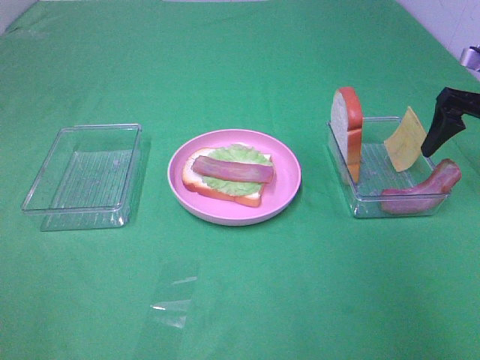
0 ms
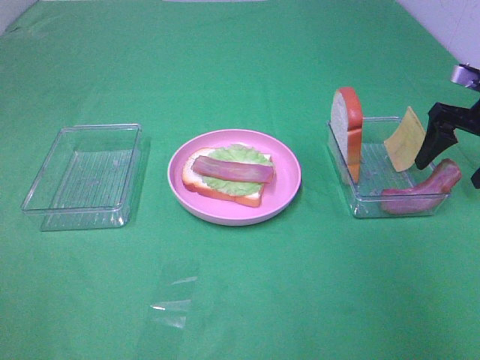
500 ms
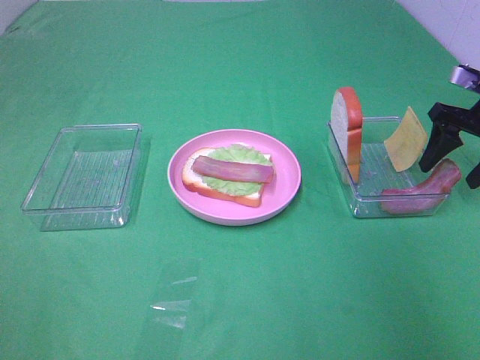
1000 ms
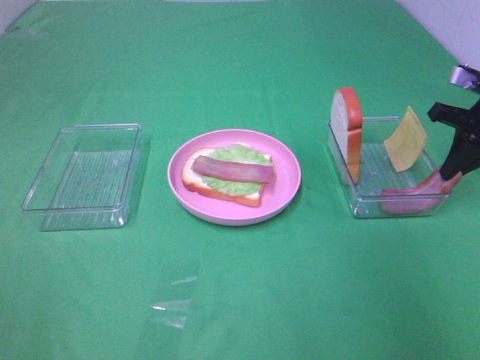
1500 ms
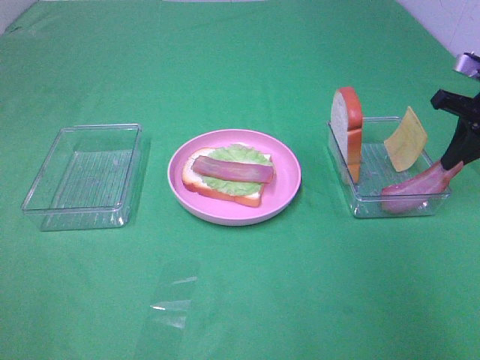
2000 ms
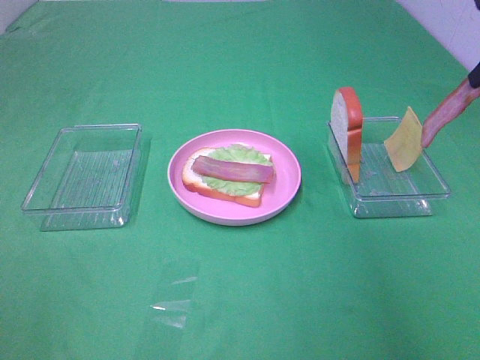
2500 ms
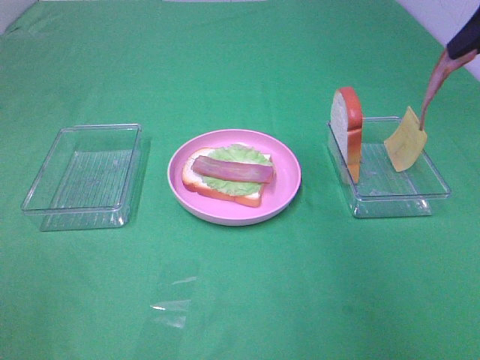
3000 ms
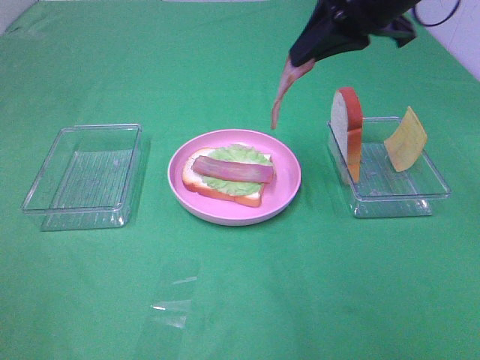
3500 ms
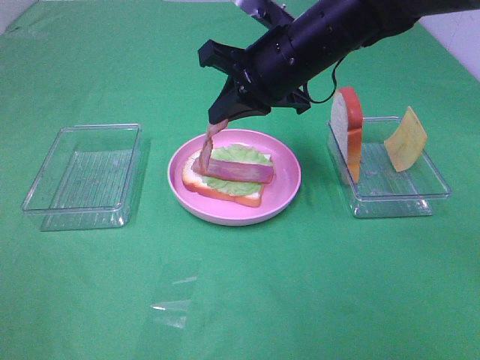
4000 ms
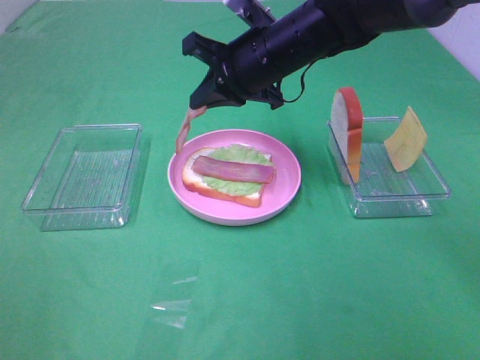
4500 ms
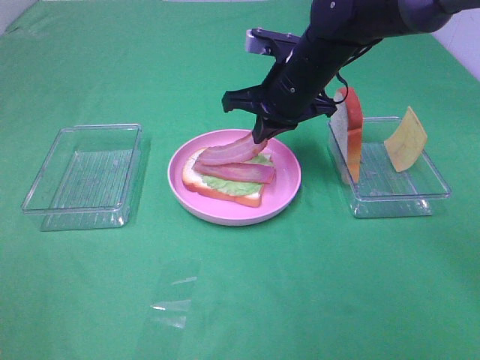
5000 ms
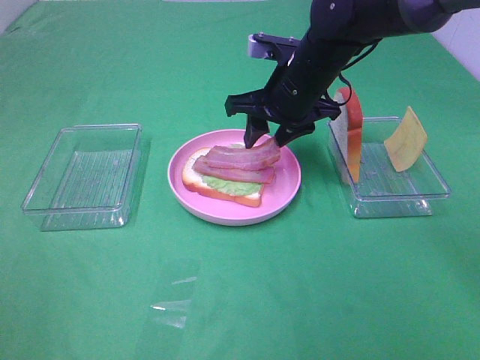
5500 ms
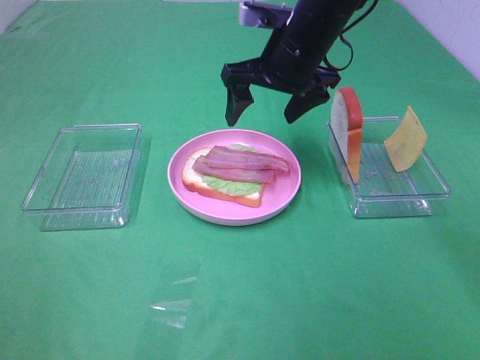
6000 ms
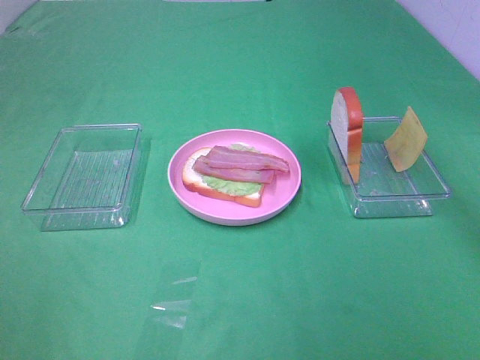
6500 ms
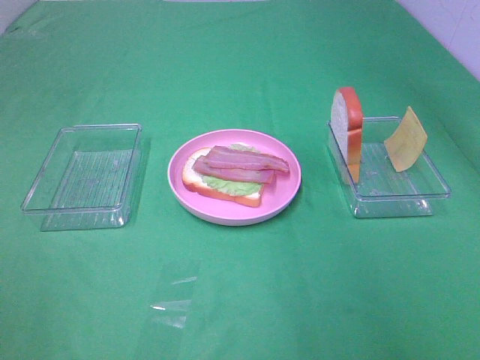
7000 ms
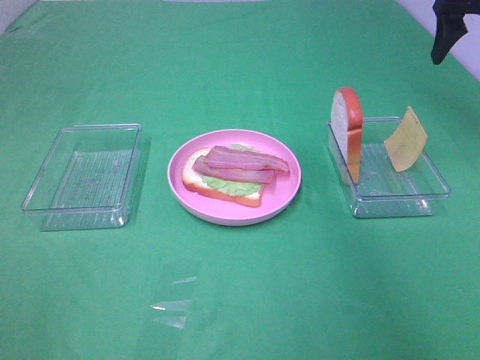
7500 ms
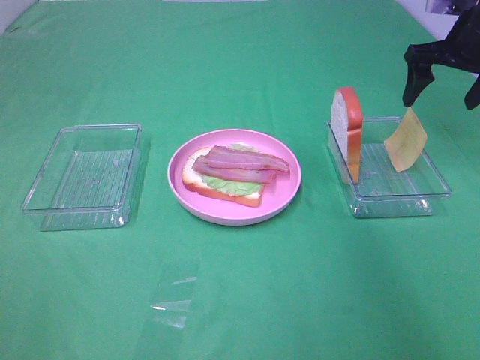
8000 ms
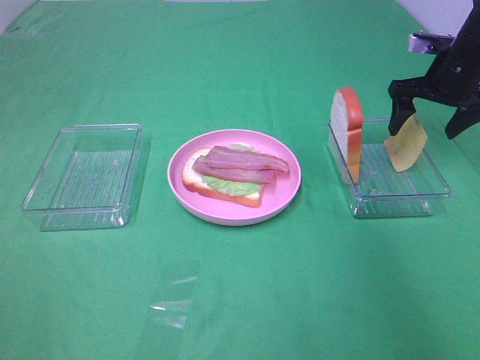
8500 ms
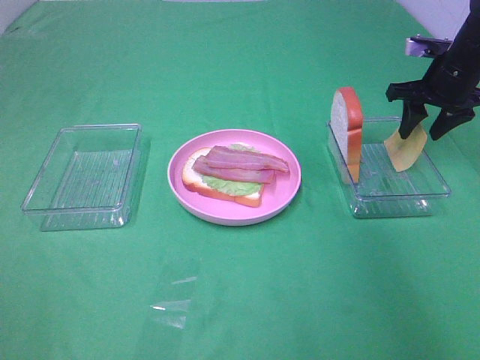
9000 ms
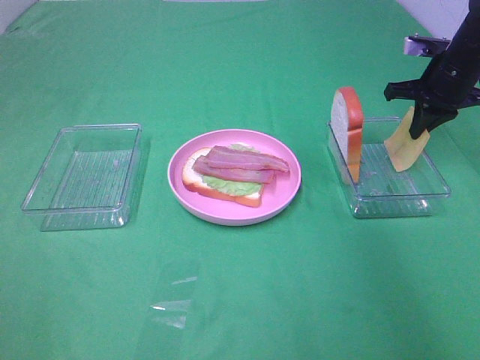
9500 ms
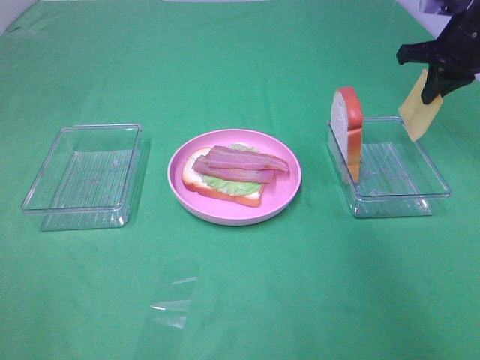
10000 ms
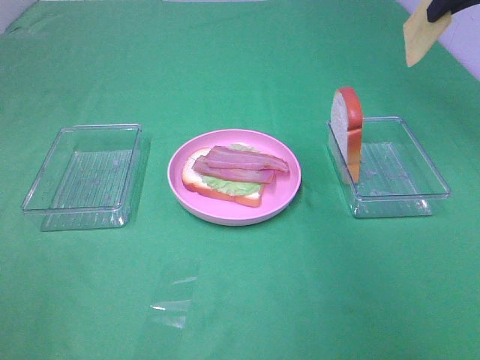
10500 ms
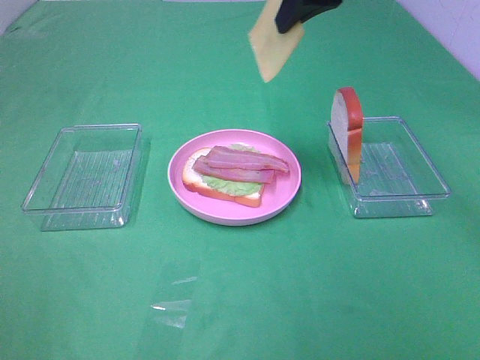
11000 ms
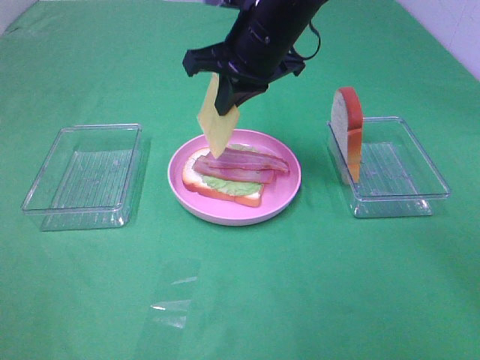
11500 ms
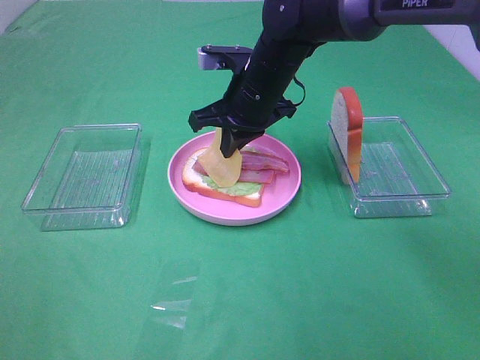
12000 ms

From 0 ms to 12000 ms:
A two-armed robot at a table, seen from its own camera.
Task of the whole recording: Make sandwiches.
Step, from 0 ms to 2000 ms: Right hand:grab the bacon.
Step, from 2500 ms to 5500 ms: Right hand:place bacon on bacon.
Step, from 6000 ms to 9500 ms: Right hand:grab the cheese slice.
From 0 ms to 2000 ms: The right gripper closes its fingers.
From 2000 ms to 4000 ms: The right gripper heads to the left, covering roughly 30 cm.
From 4000 ms to 6000 ms: The right gripper opens up.
From 6000 ms to 8000 ms: The right gripper shifts approximately 25 cm to the right.
From 8000 ms to 10000 ms: The right gripper closes its fingers.
From 10000 ms to 12000 ms: The right gripper is displaced to the left by roughly 30 cm.

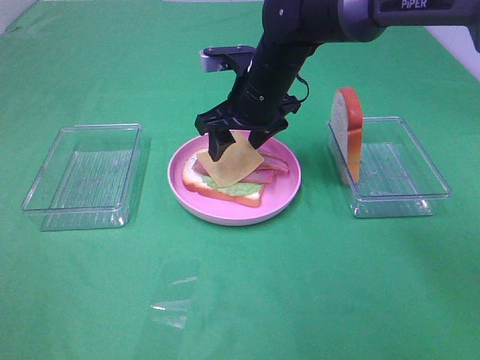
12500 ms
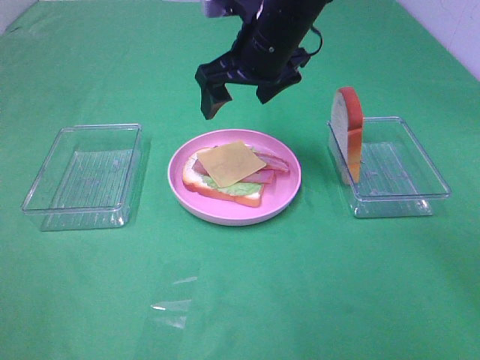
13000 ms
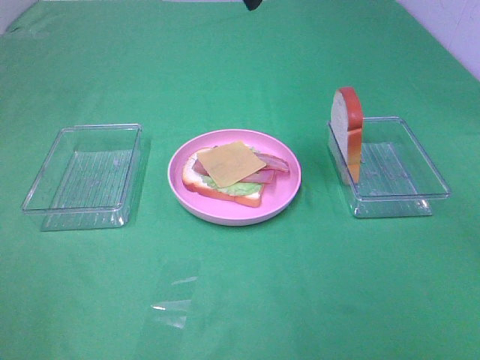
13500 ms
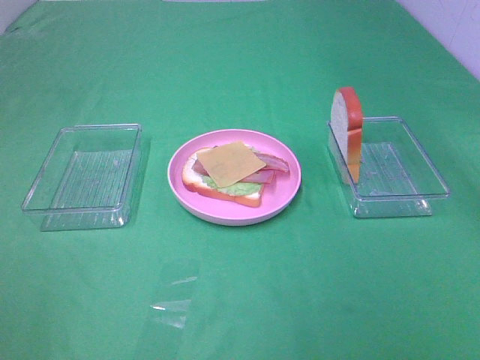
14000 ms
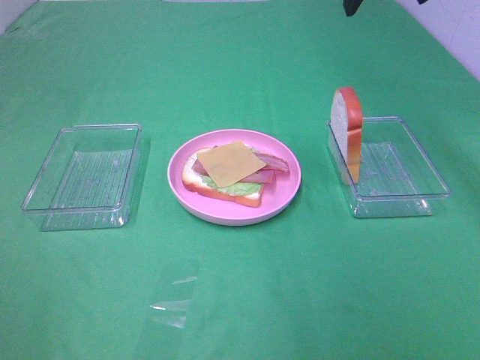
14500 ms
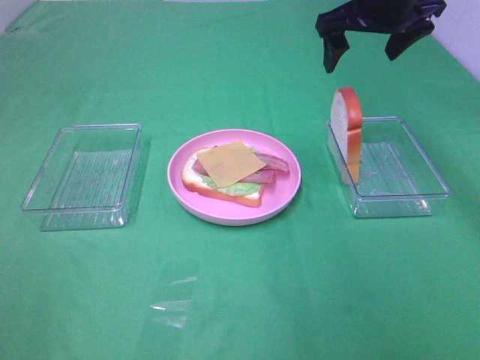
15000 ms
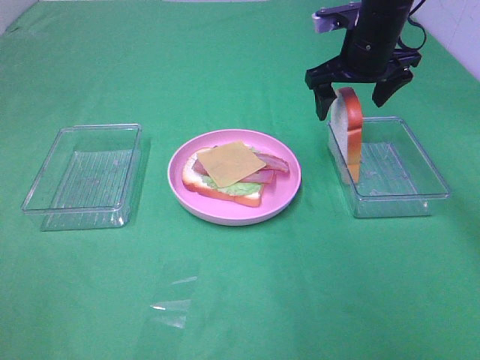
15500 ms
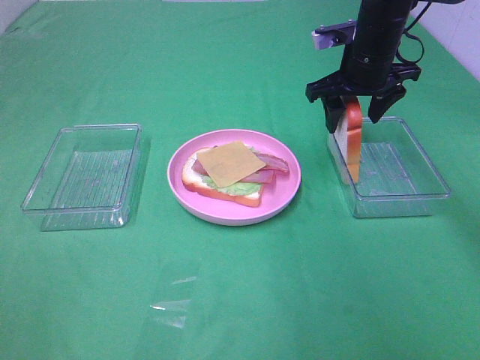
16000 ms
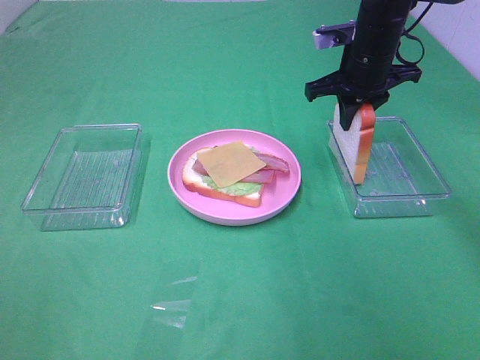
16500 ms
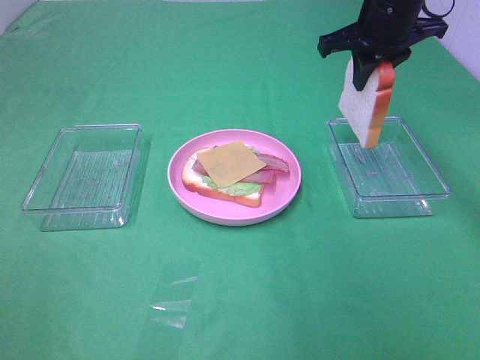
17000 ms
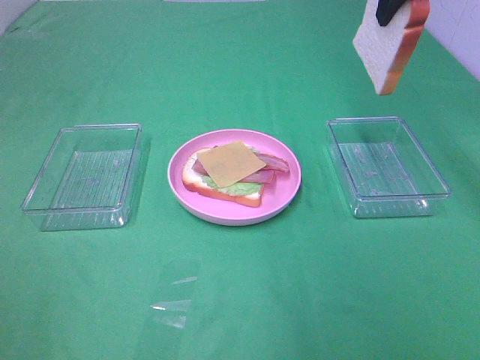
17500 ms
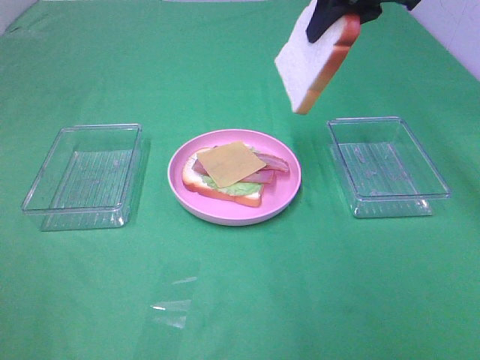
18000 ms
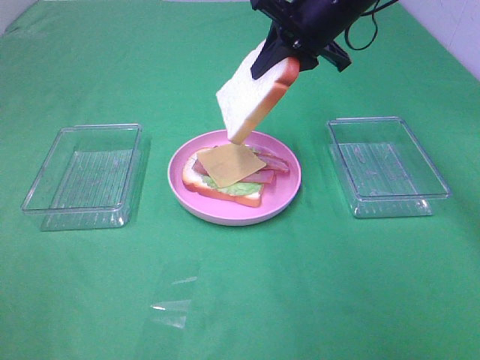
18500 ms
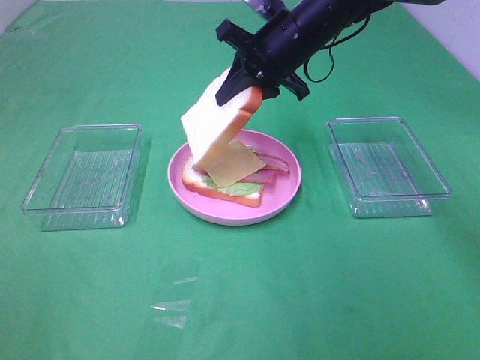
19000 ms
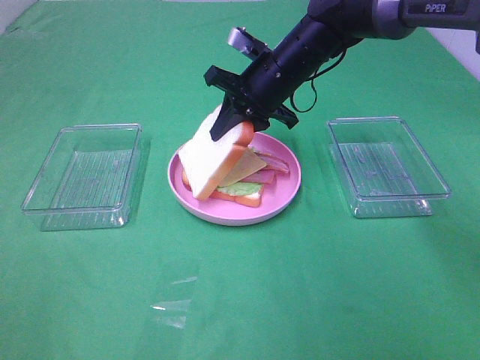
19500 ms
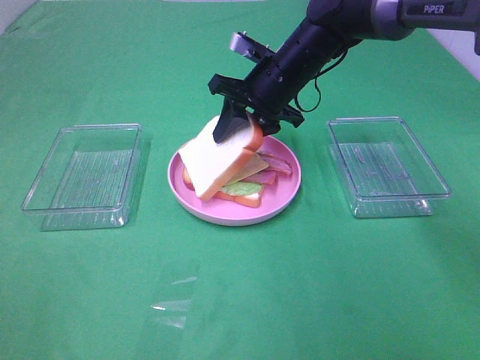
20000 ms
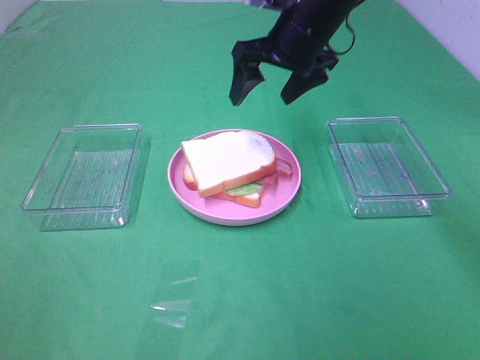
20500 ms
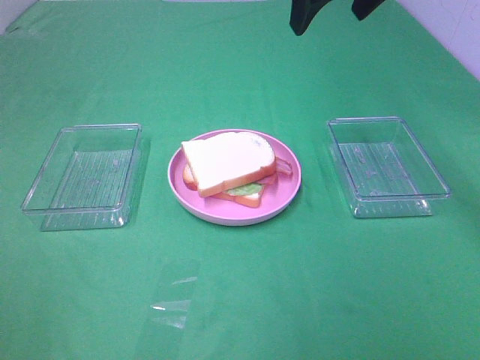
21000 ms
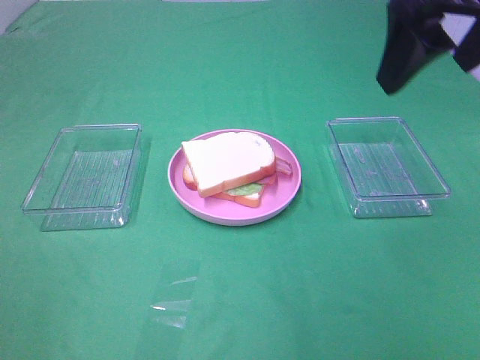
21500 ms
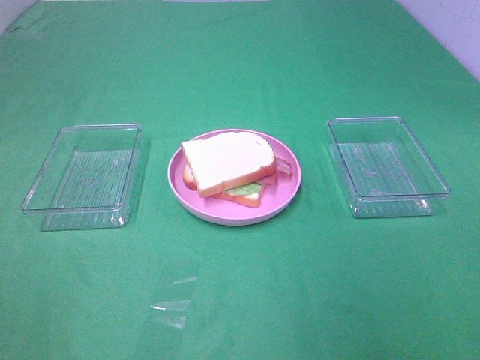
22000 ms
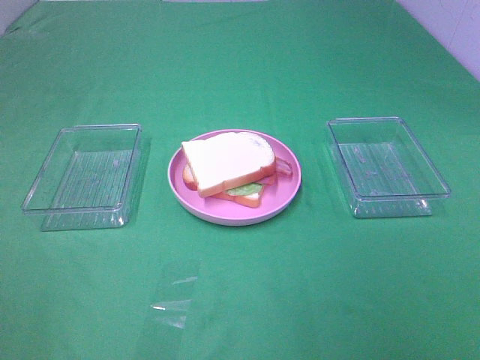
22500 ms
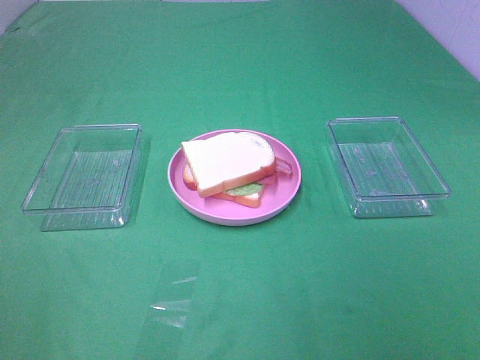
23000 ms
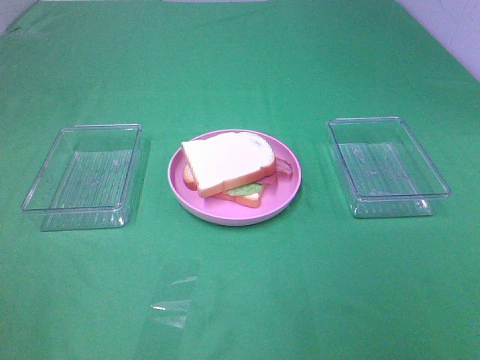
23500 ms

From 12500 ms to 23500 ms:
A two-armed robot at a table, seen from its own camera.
Task of the whole recording: Make sandwiches.
Step, from 13000 ms to 16000 ms: Right hand:grab the bread slice.
Step, from 16500 ms to 20500 ms: Right hand:place the bread slice on the cheese slice.
From 12500 ms to 14500 ms: The right gripper is displaced upward and to the right by about 25 cm.
From 14500 ms to 16000 ms: The right gripper shifts about 15 cm downward.
From 16000 ms to 18000 ms: The right gripper heads upward, covering some 15 cm, and closes its fingers.
From 18000 ms to 20000 ms: The right gripper goes about 20 cm downward and to the left.
From 20000 ms to 21500 ms: The right gripper heads upward, backward and to the right, covering roughly 30 cm, and opens.
From 21500 ms to 23500 ms: The right gripper is displaced backward by roughly 25 cm.
